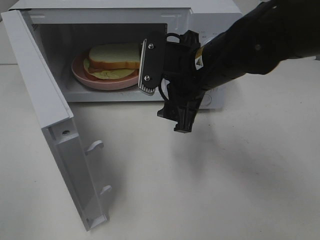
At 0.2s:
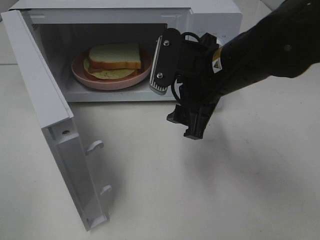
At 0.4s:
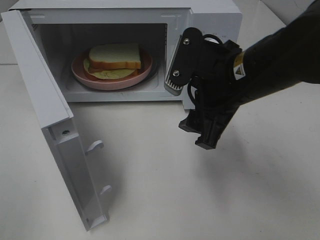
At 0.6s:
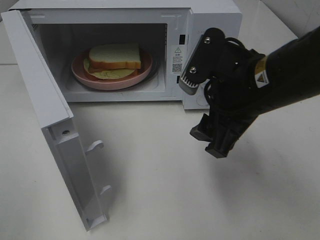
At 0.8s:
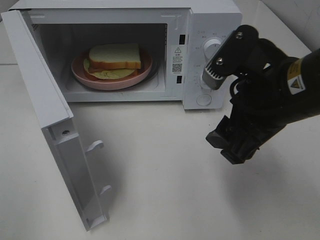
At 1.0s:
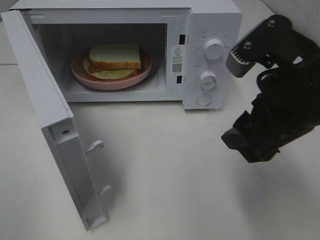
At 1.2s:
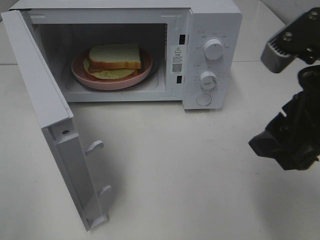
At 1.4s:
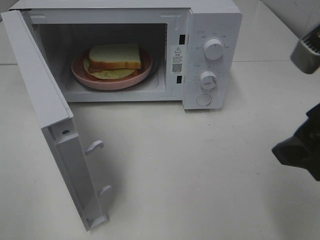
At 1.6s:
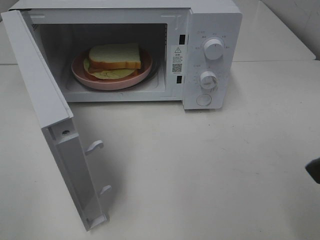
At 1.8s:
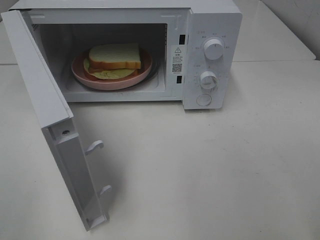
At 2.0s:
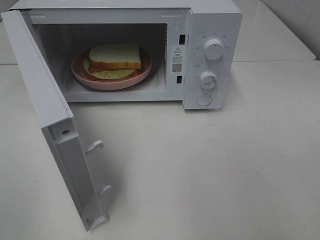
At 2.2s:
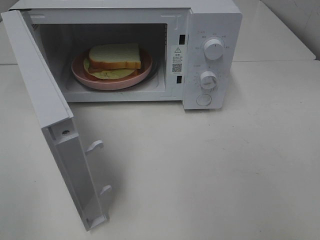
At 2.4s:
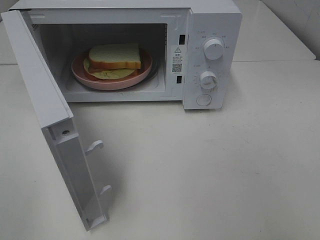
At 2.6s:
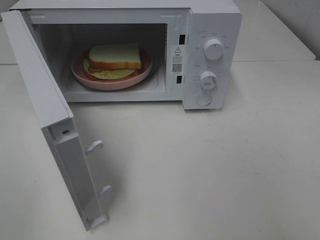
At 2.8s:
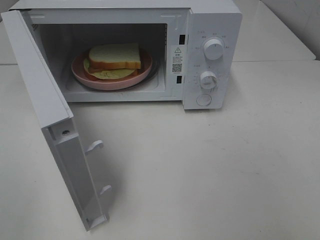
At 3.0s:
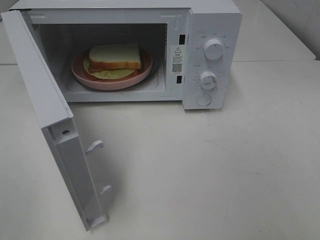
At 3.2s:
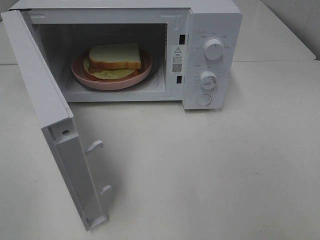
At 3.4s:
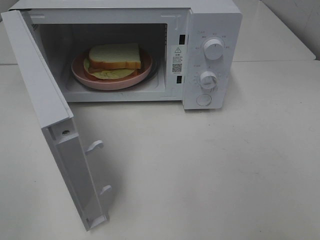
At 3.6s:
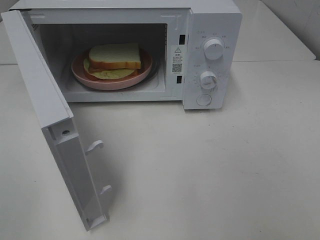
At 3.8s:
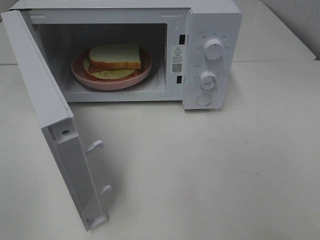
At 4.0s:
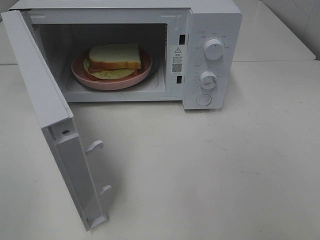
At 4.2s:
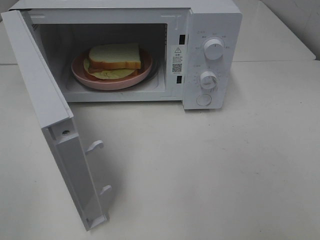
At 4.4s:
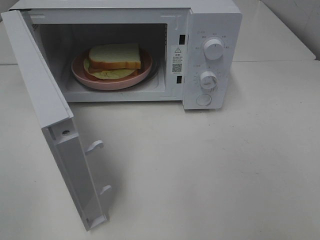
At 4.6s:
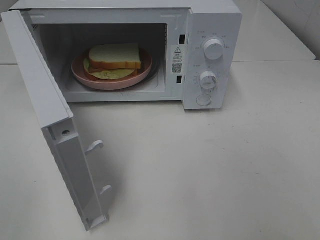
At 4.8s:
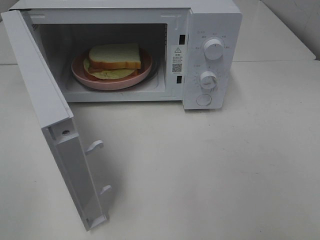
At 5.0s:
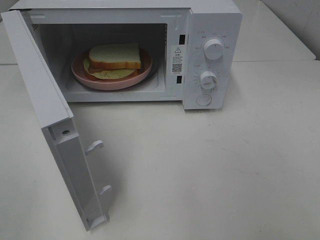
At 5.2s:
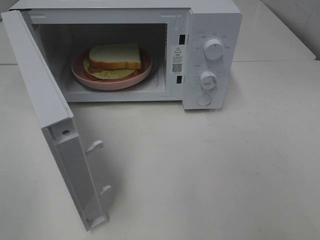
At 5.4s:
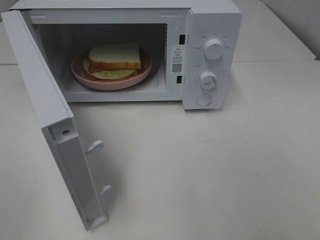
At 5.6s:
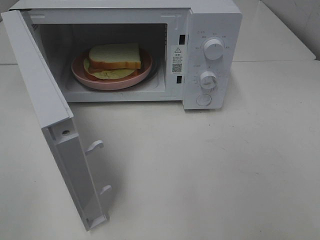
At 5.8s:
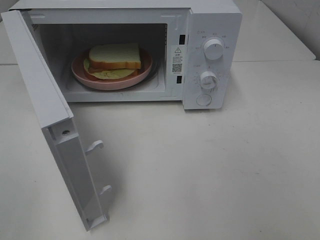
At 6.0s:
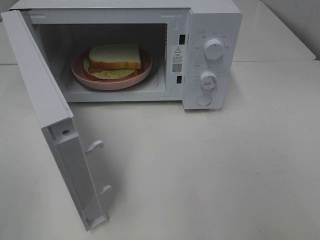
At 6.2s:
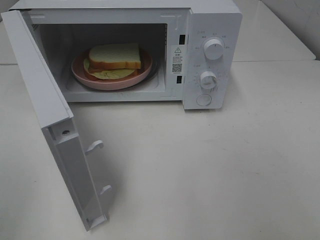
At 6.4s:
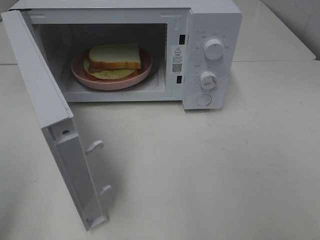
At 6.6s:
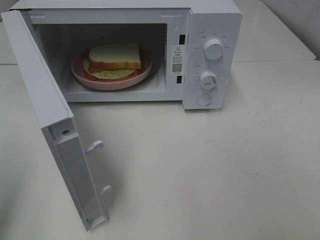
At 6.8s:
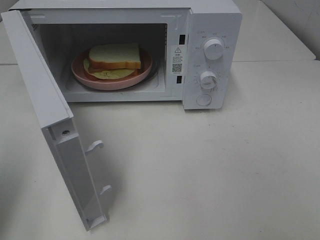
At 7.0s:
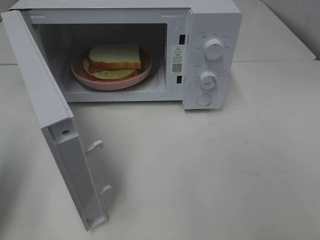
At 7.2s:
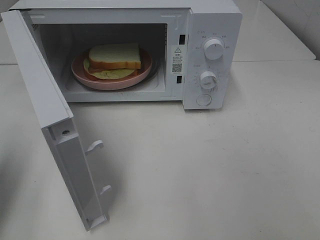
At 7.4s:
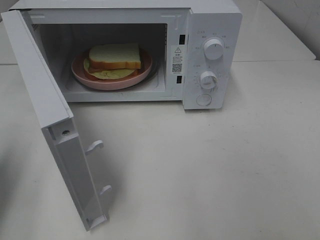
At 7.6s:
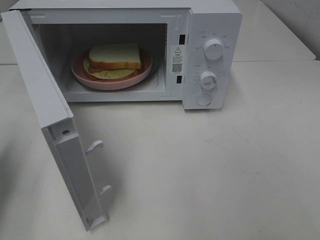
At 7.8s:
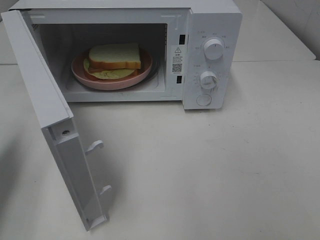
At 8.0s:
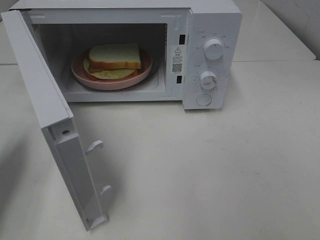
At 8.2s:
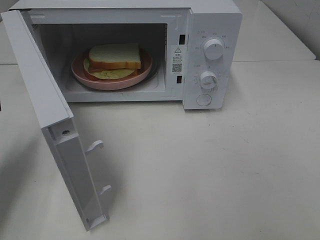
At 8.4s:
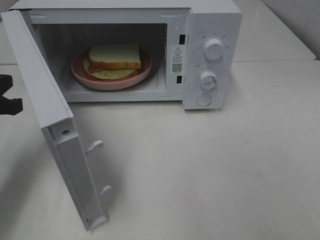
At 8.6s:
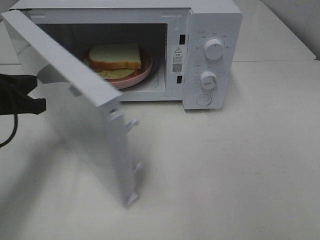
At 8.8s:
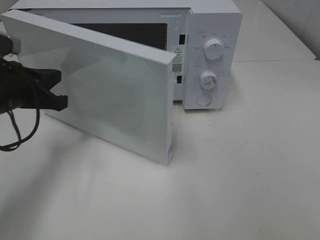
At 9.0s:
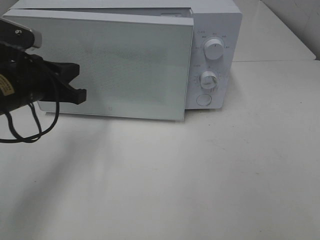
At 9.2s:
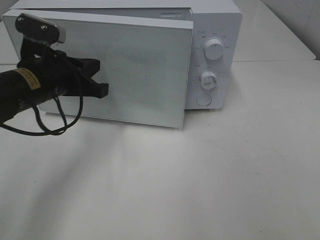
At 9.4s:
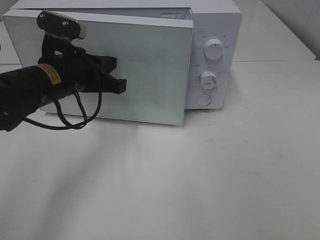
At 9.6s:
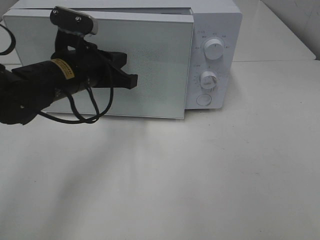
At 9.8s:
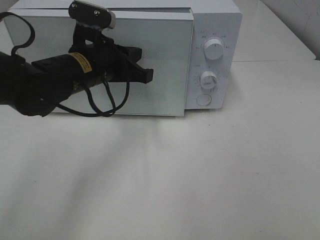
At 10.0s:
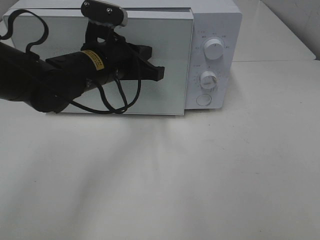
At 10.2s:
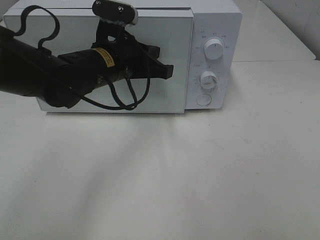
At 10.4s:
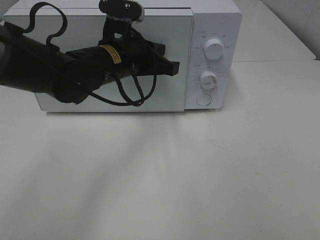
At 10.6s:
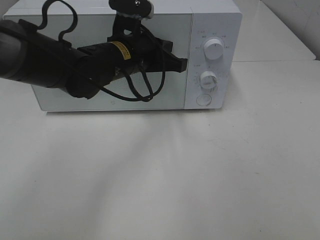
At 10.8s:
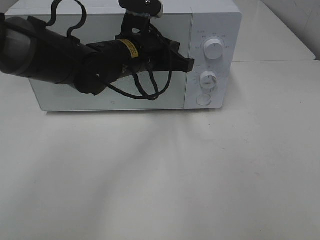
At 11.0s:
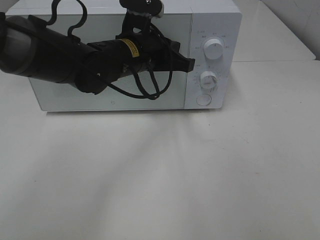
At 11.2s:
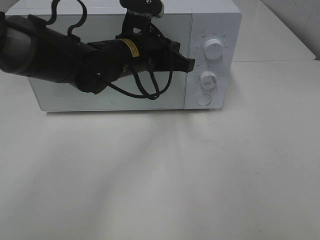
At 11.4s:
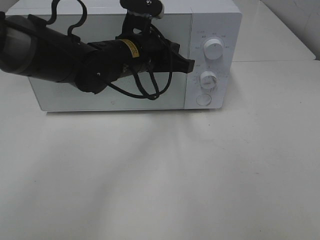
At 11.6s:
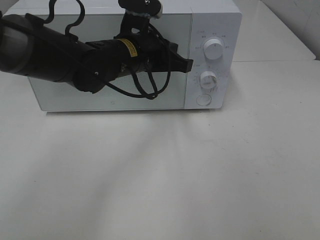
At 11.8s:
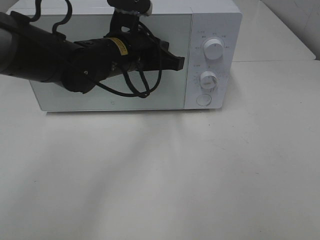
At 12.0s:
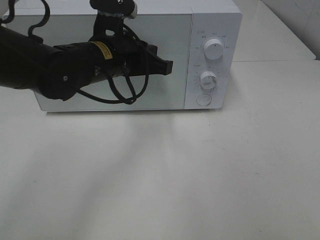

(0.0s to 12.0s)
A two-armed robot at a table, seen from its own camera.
Task of the whole recording: Heat Sandwich.
0.0s - 1.6s: The right gripper travels backward, to the right and upward by roughly 25 cm.
1.6s - 3.0s: The right gripper travels backward and to the right by some 15 cm.
6.0s - 7.6s: The left gripper moves forward and downward, roughly 20 cm, and closes.
7.6s - 9.0s: The left gripper shifts roughly 15 cm to the right and forward.
9.0s - 10.4s: The left gripper goes roughly 15 cm to the right.
10.4s - 12.0s: There are only small adjustments of the grippers.

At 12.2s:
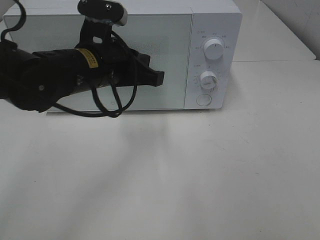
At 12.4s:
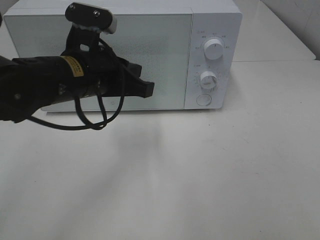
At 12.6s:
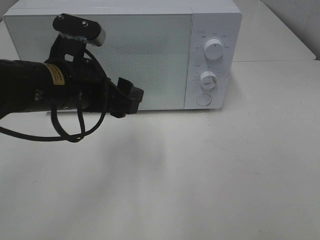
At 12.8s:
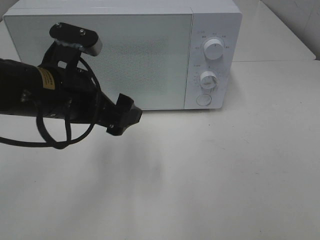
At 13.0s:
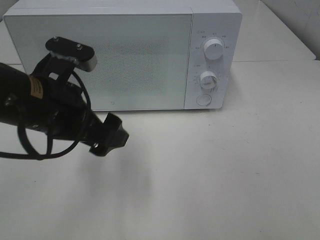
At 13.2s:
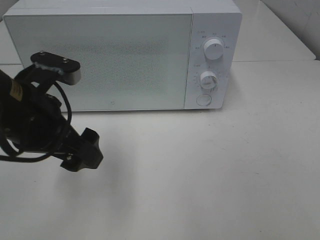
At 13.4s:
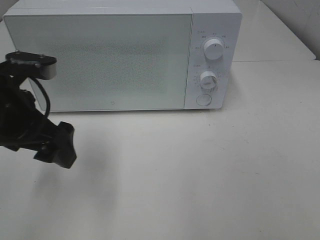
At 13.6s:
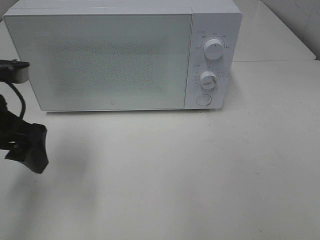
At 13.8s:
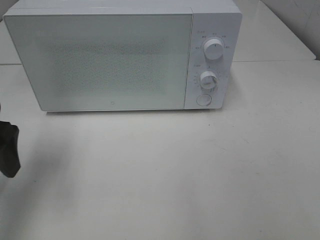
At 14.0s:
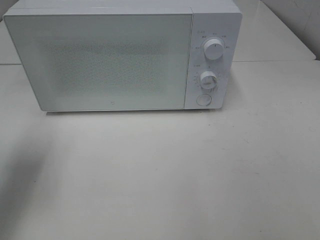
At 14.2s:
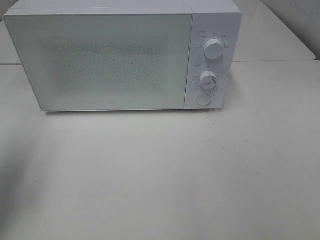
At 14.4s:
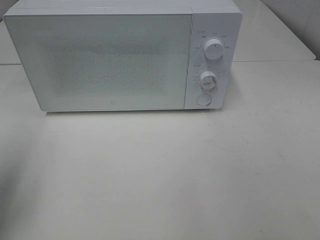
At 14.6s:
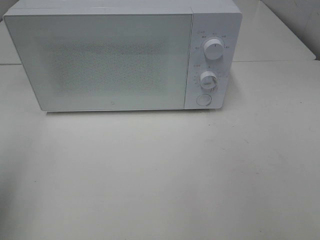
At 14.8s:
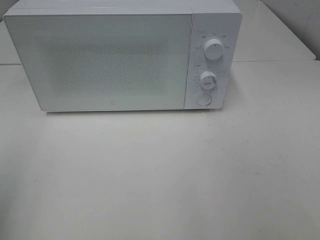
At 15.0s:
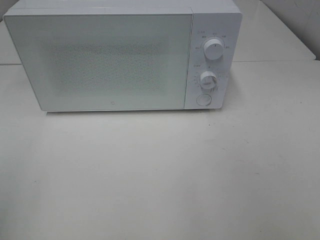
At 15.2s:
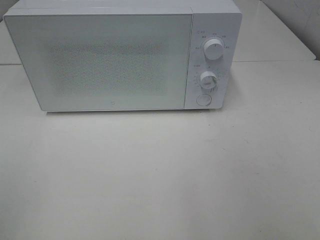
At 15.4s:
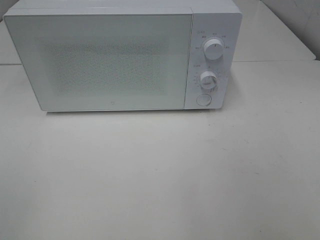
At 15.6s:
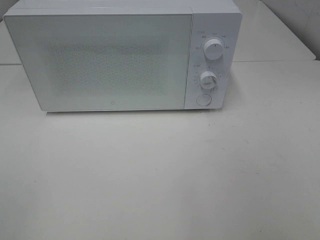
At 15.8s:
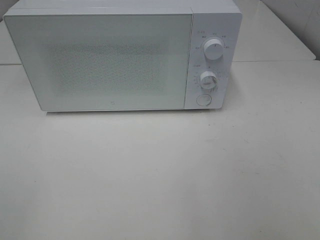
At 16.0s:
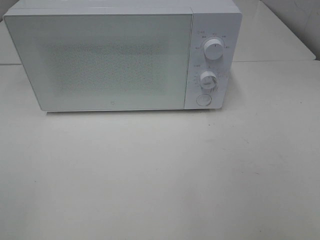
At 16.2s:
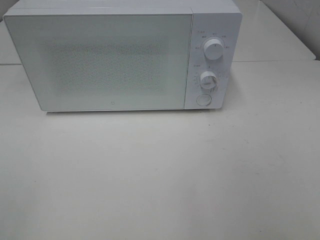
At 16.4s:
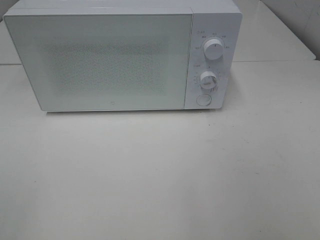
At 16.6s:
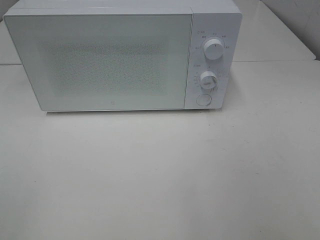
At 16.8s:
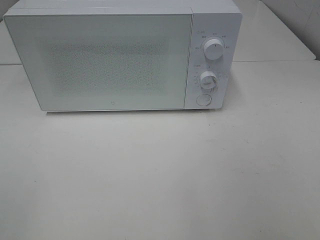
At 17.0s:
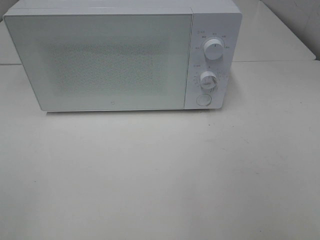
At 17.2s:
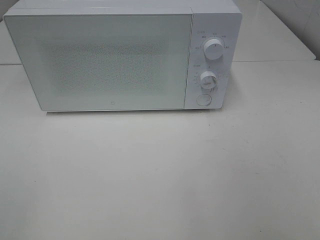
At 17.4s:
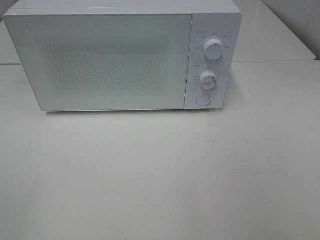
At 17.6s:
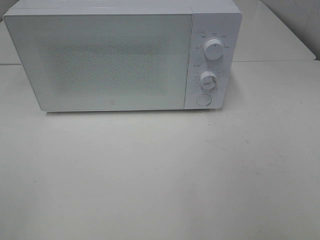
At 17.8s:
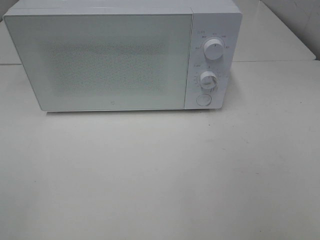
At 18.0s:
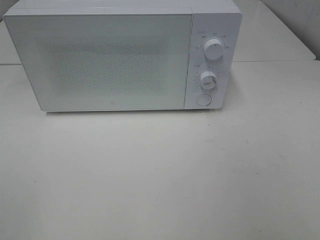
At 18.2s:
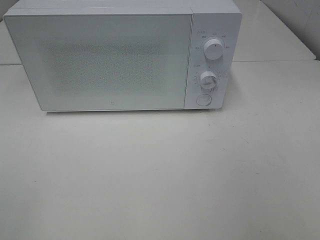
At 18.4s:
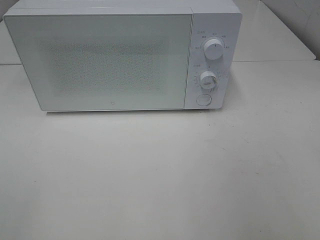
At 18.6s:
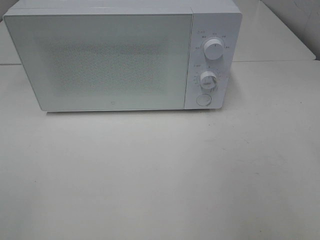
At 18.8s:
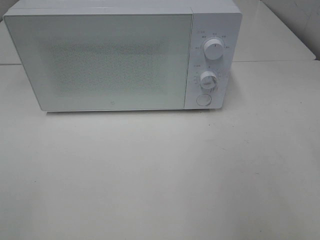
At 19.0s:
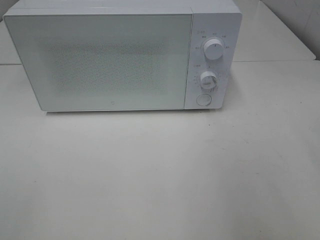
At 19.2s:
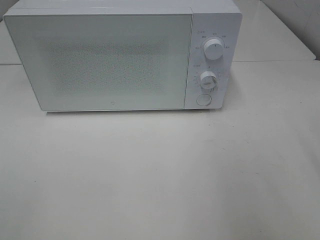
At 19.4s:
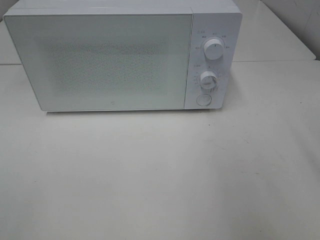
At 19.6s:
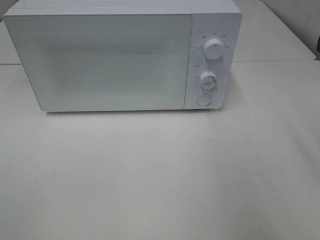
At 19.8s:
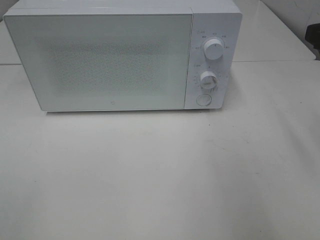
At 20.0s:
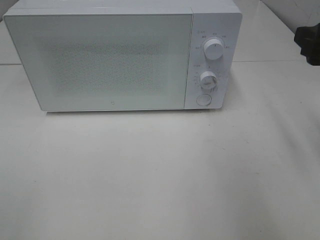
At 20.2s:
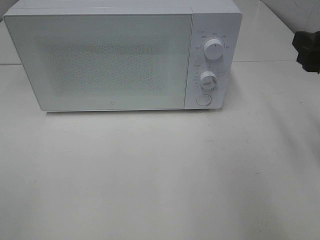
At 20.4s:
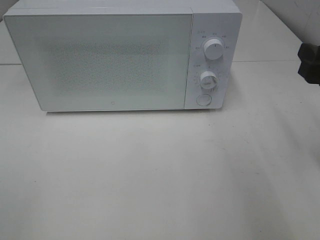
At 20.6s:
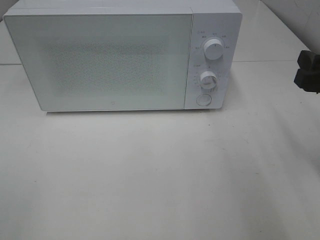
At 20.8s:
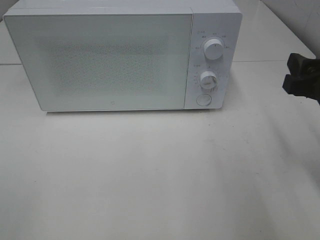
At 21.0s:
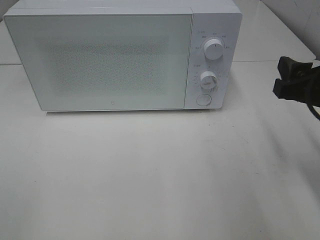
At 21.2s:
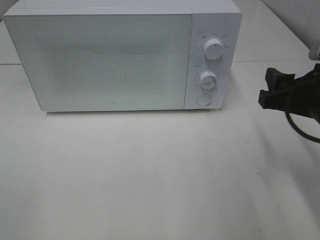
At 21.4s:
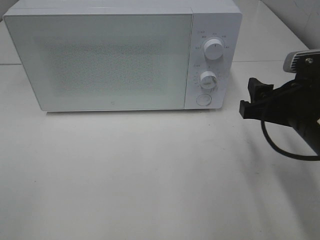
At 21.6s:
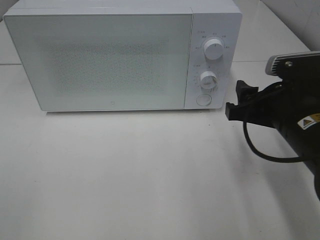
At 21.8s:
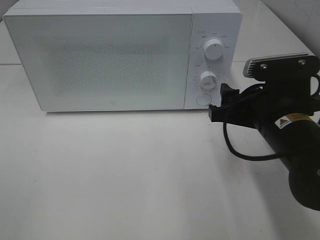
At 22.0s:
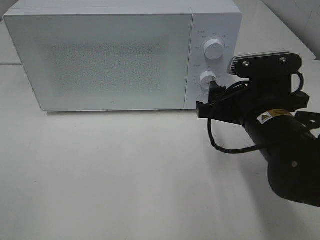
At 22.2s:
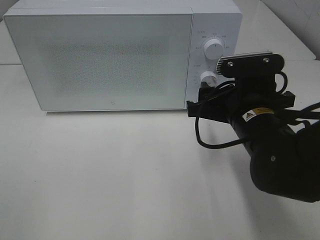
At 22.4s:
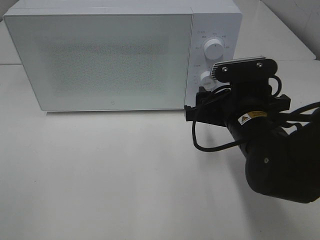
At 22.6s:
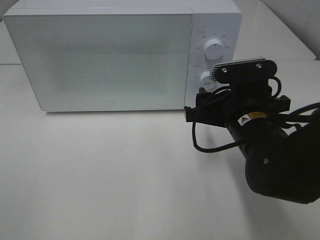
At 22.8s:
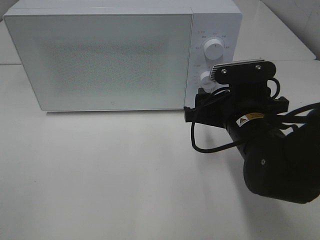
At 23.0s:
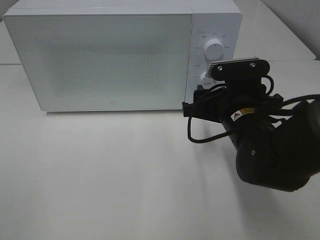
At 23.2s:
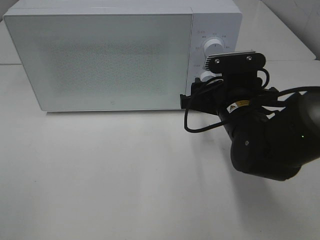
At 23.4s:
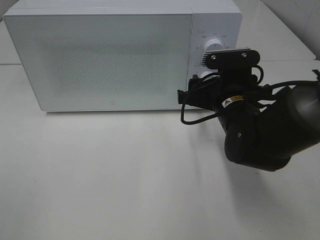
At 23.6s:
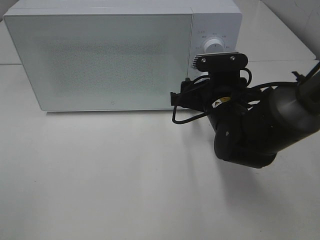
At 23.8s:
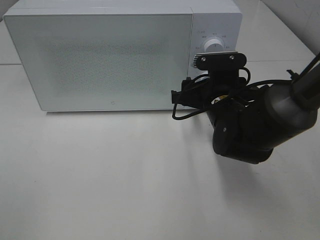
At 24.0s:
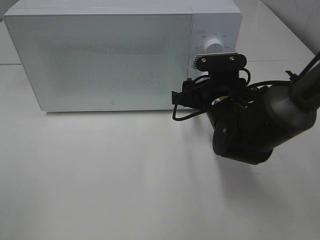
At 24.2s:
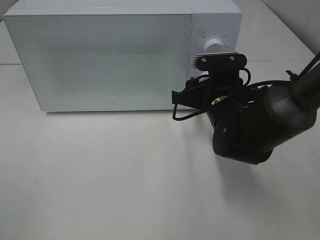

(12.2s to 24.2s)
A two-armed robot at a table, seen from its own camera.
Task of the whole recording: Heat Sandwich.
12.2s - 13.8s: The left gripper travels to the left by about 20 cm, and opens its fingers.
13.8s - 15.2s: The left gripper travels backward by some 20 cm.
19.8s - 21.2s: The right gripper heads downward, covering some 10 cm.
21.2s - 22.6s: The right gripper is displaced to the left by approximately 10 cm.
22.6s - 24.2s: The right gripper moves forward, some 5 cm.
